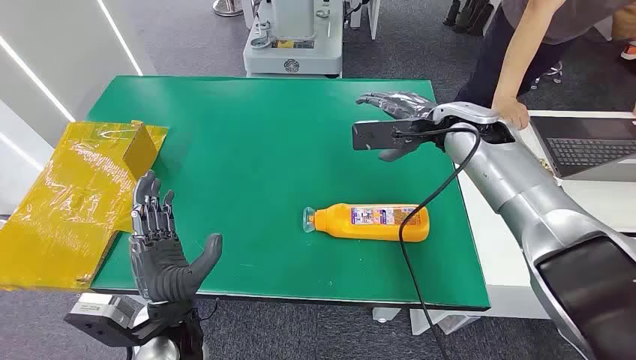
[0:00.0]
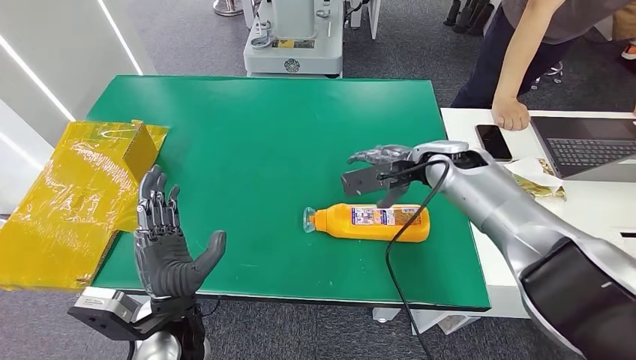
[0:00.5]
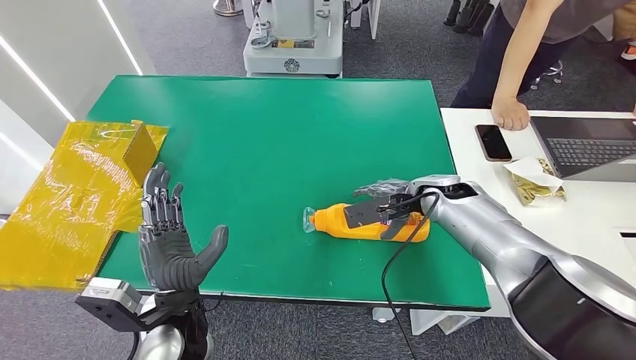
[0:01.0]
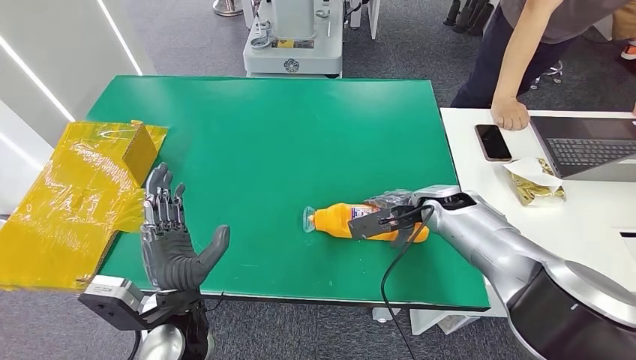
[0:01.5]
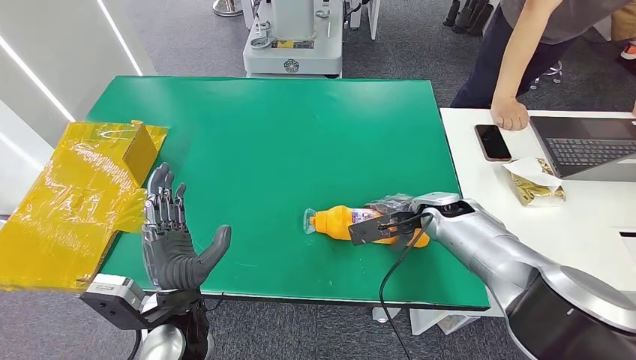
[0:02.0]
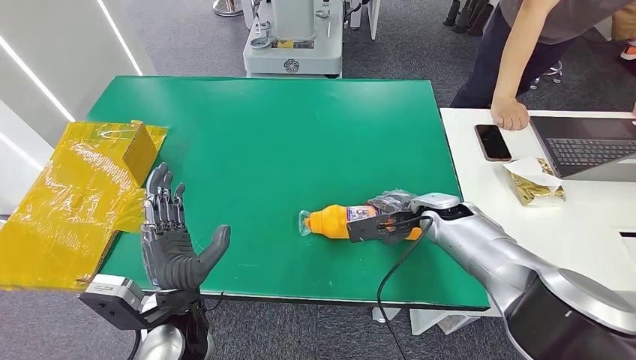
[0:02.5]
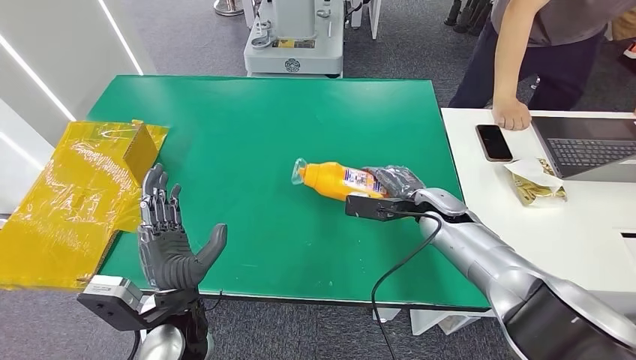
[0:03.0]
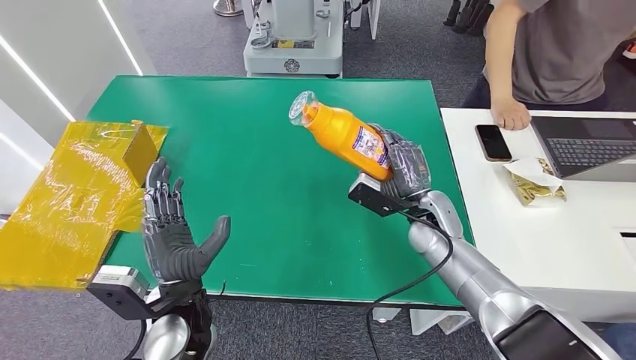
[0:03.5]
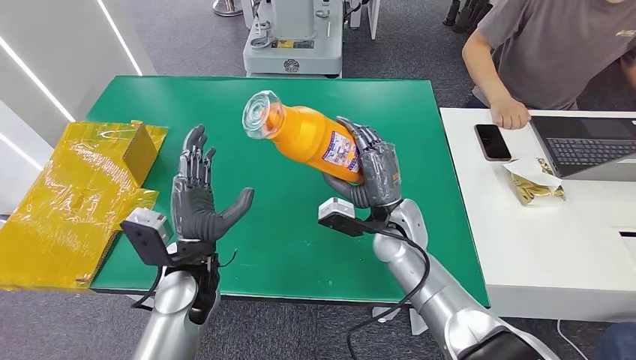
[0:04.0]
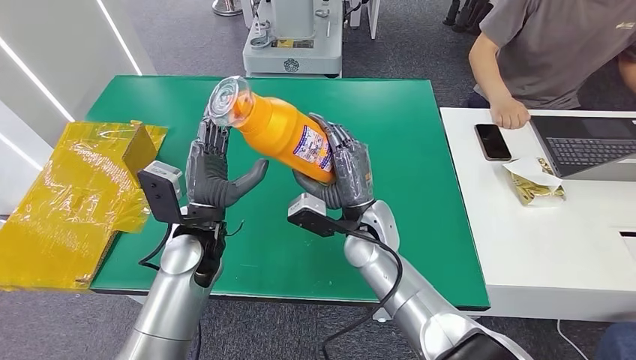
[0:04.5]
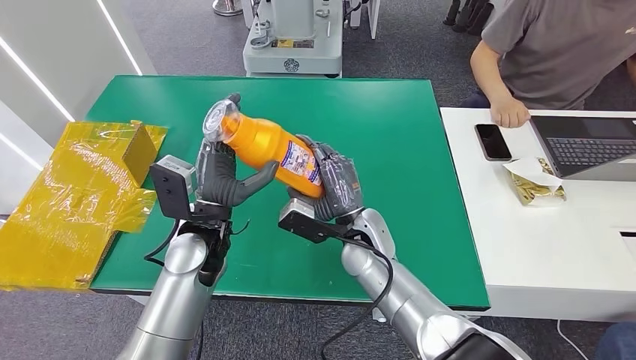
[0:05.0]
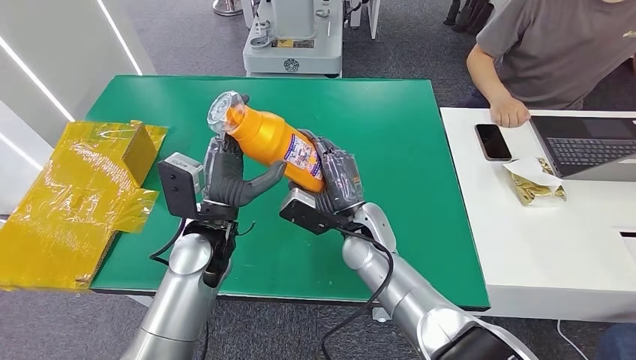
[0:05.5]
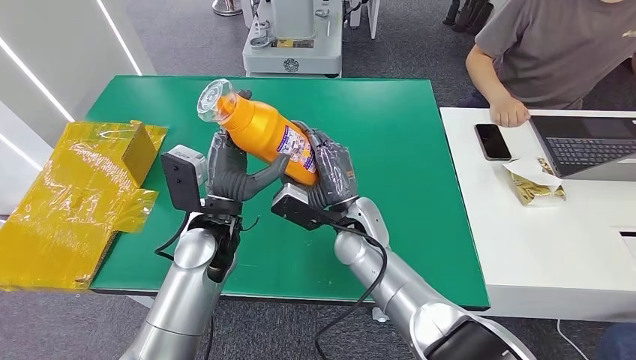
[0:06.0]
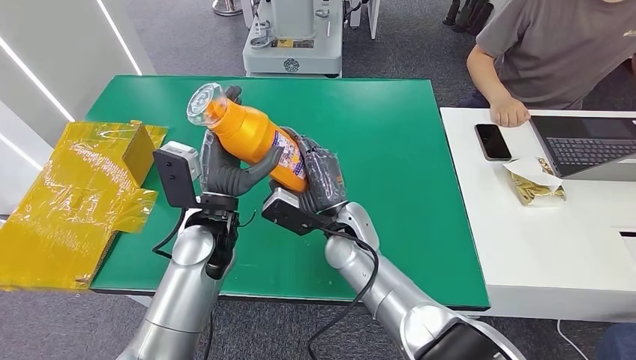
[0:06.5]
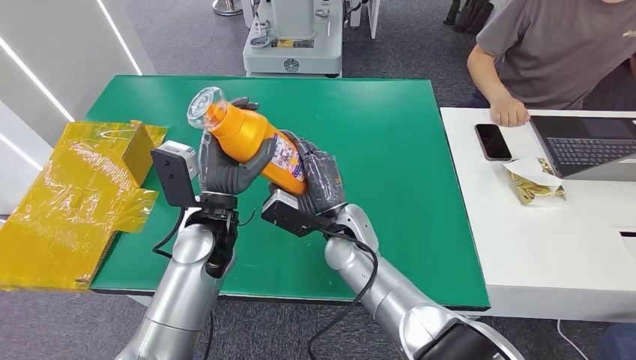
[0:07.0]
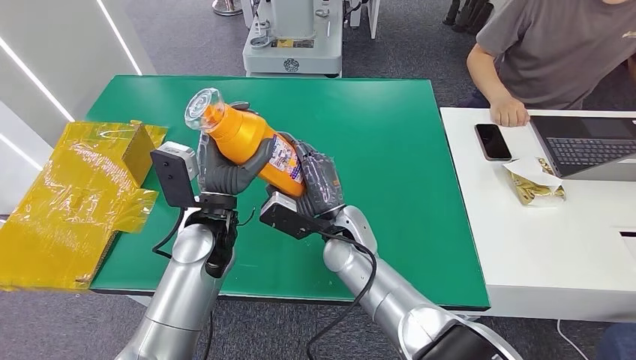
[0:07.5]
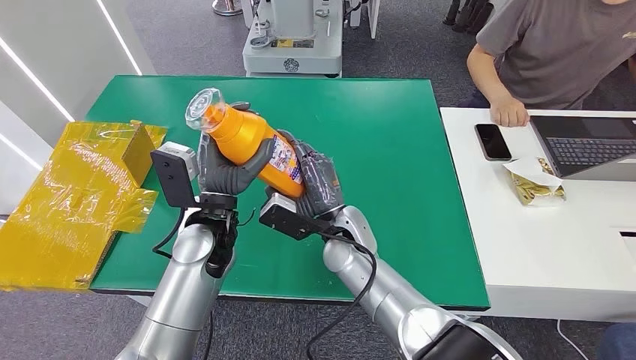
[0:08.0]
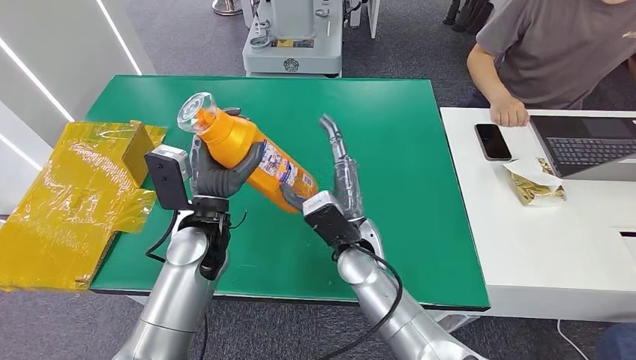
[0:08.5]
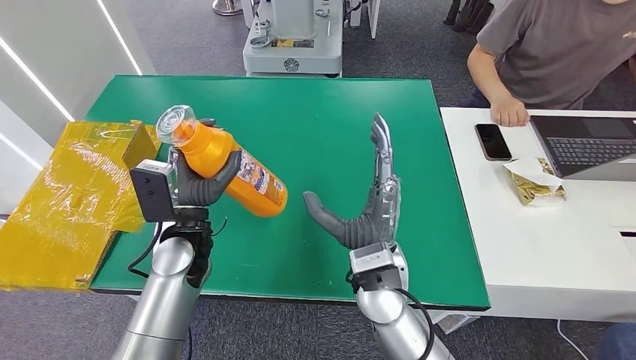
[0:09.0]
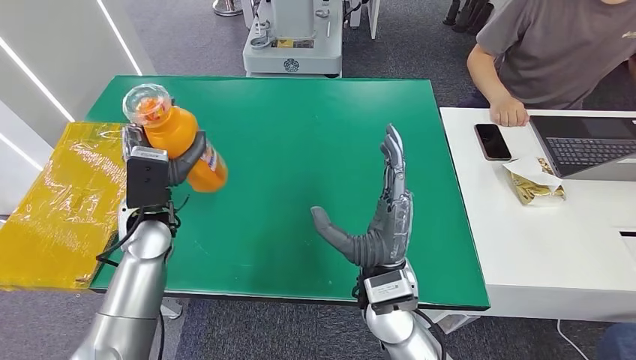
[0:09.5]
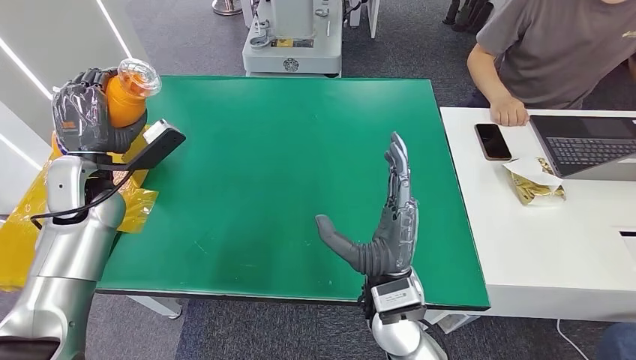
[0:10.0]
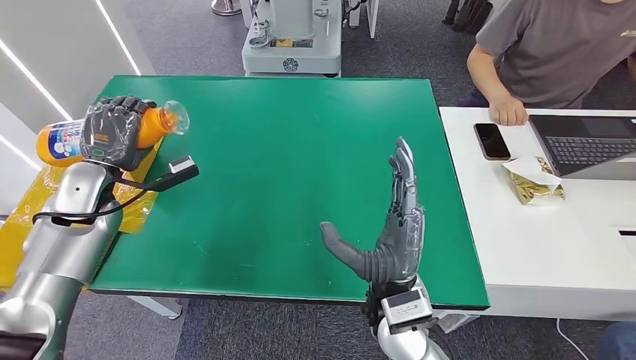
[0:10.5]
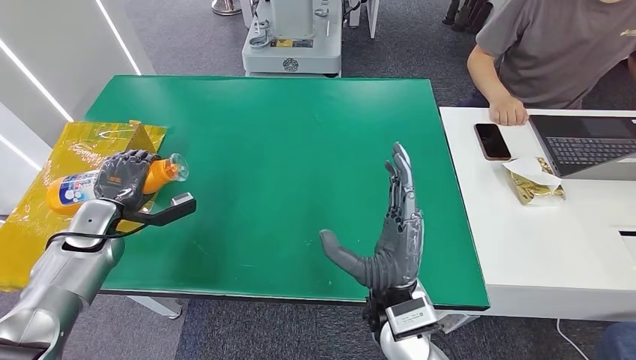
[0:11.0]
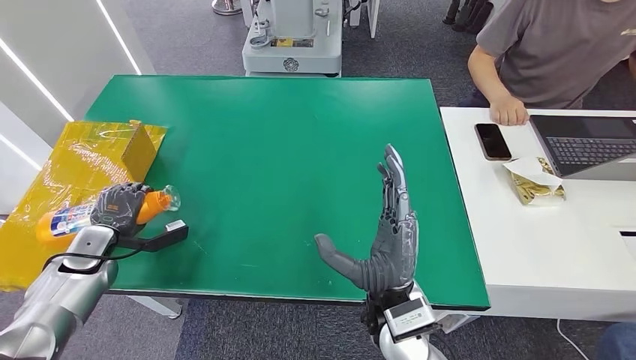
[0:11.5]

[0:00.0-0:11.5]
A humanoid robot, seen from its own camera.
Step, 0:00.0 to 0:03.0: Pick up the bottle from the table.
0:04.0 to 0:06.0: The right hand moves to the left, about 5 cm; the left hand goes roughly 5 cm forward.
0:06.0 to 0:07.5: The hands stay close to where they were, moving slightly.
0:07.5 to 0:09.5: The right hand travels backward by roughly 10 cm, while the left hand goes roughly 10 cm to the left.
0:09.5 to 0:11.5: The left hand moves to the left and downward, some 25 cm.

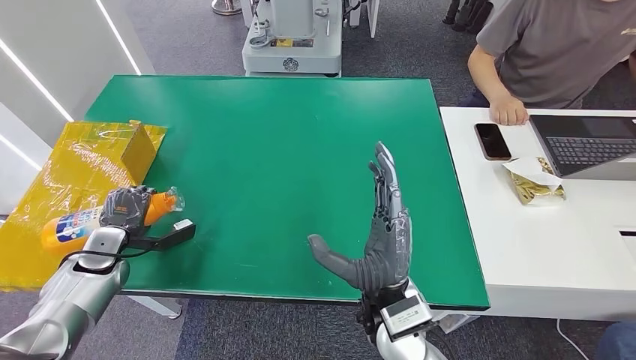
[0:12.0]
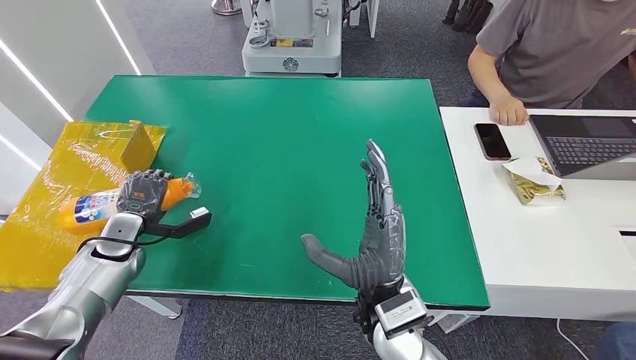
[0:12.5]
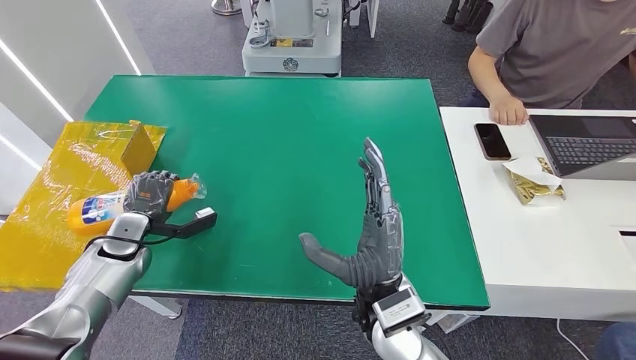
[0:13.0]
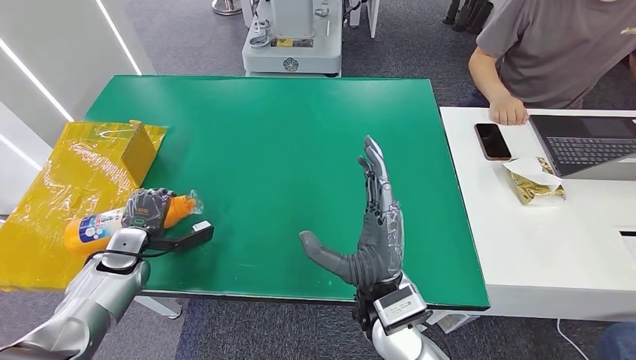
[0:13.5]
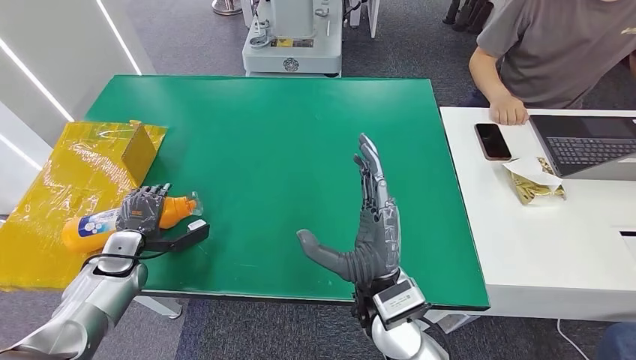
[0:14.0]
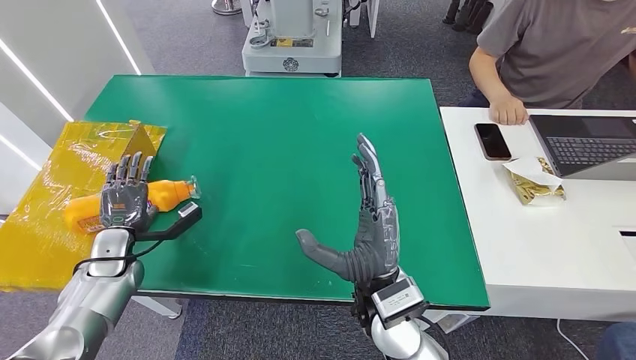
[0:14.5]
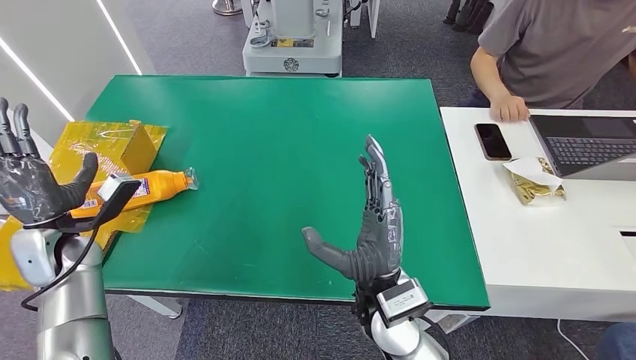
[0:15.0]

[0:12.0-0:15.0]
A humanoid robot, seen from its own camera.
Step, 0:12.0 to 0:15.0: Turn the bottle to the front side.
0:12.0 to 0:13.5: The hands move only a little.
0:13.5 to 0:15.0: The left hand shifts roughly 10 cm upward.
